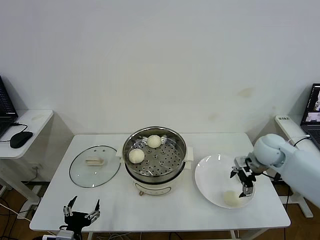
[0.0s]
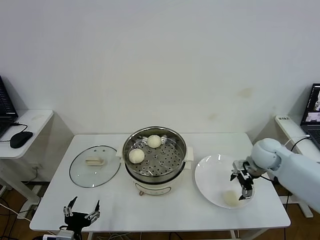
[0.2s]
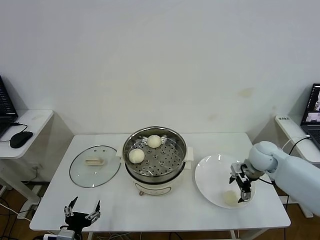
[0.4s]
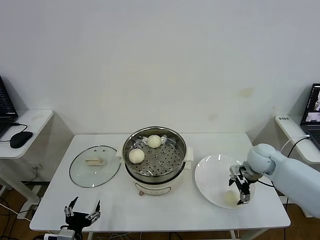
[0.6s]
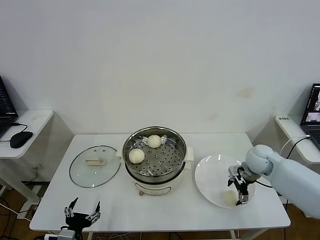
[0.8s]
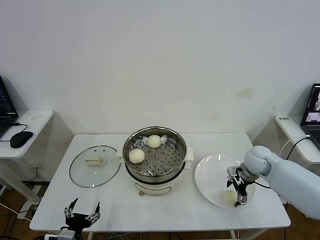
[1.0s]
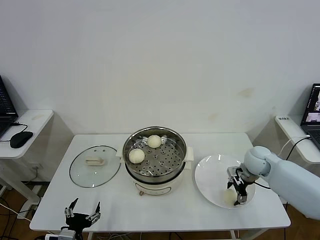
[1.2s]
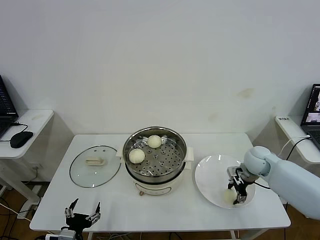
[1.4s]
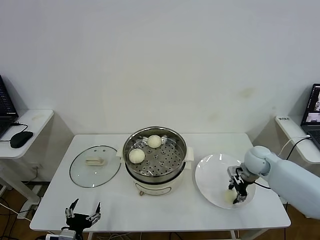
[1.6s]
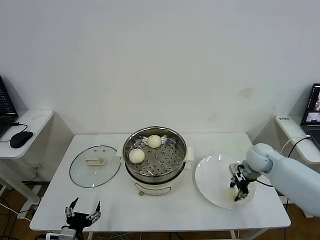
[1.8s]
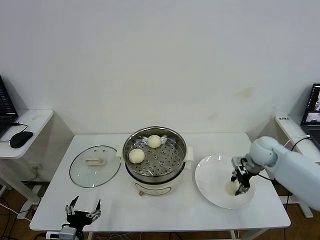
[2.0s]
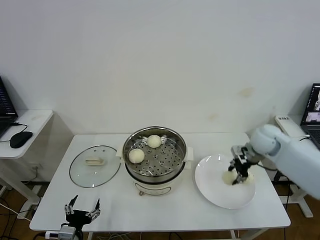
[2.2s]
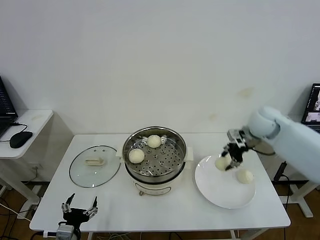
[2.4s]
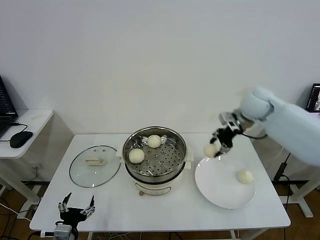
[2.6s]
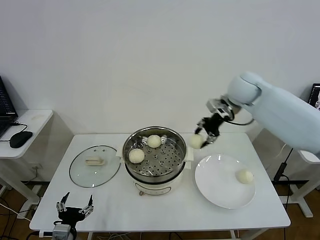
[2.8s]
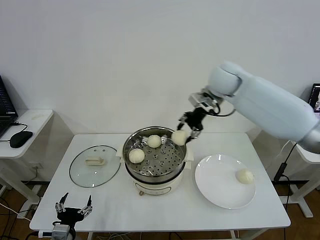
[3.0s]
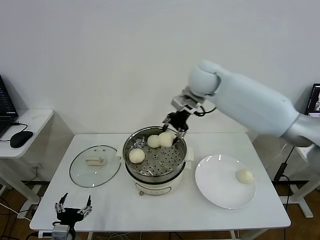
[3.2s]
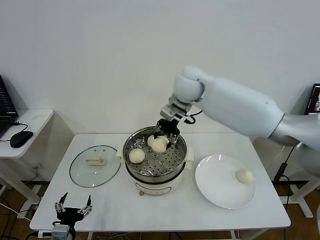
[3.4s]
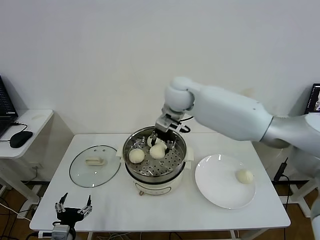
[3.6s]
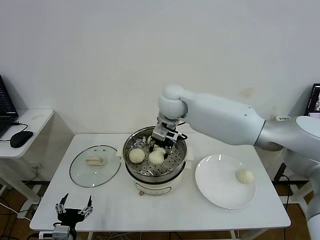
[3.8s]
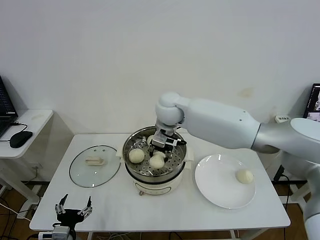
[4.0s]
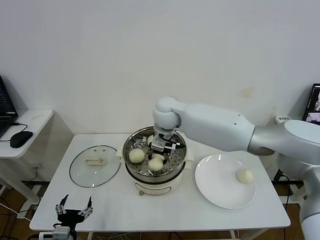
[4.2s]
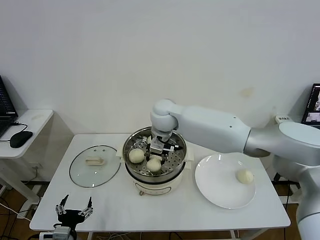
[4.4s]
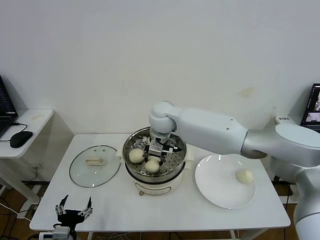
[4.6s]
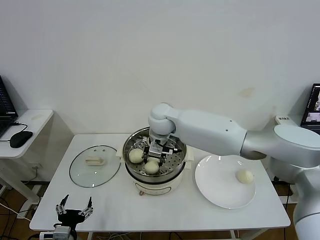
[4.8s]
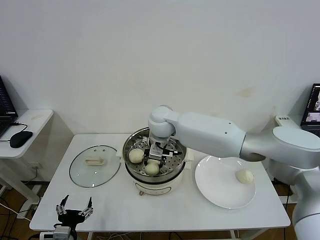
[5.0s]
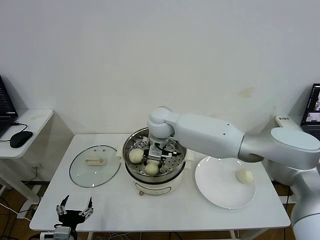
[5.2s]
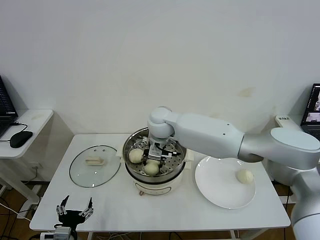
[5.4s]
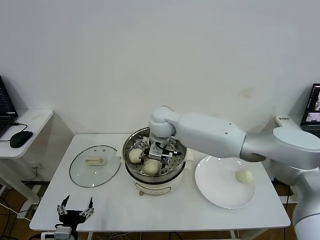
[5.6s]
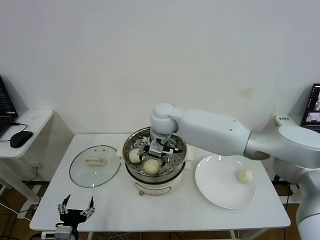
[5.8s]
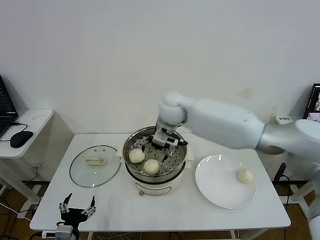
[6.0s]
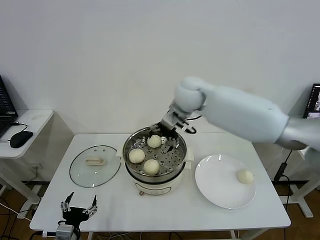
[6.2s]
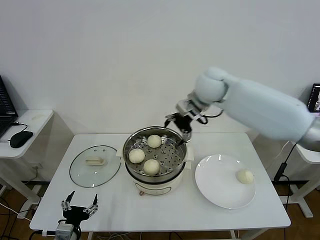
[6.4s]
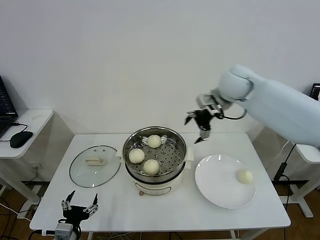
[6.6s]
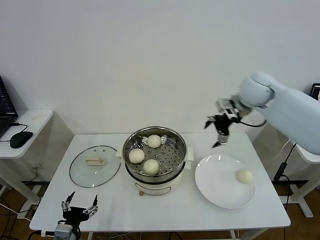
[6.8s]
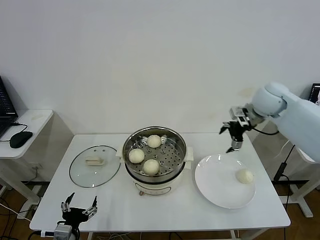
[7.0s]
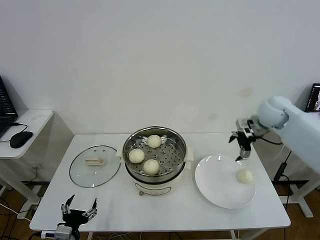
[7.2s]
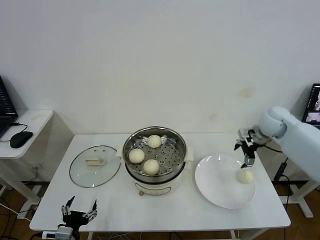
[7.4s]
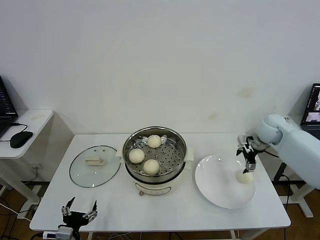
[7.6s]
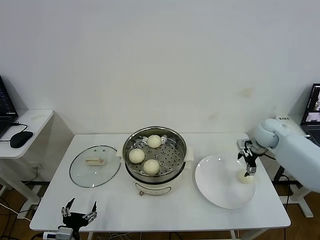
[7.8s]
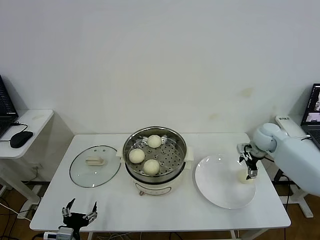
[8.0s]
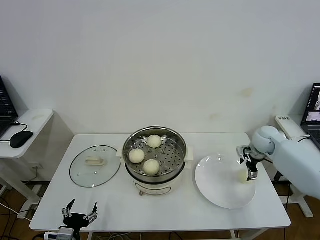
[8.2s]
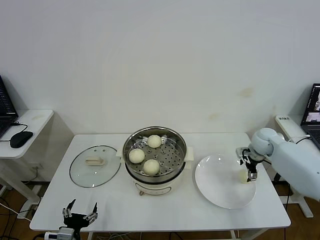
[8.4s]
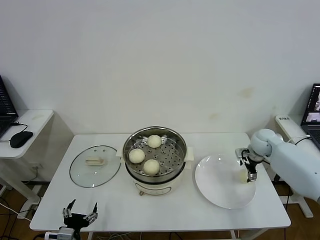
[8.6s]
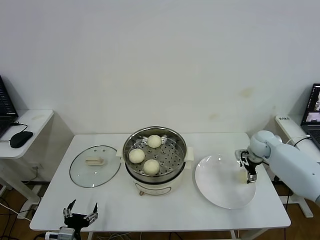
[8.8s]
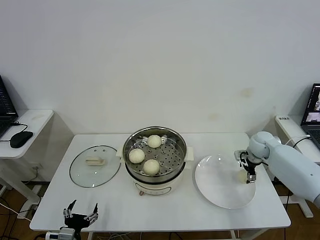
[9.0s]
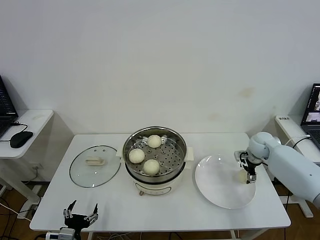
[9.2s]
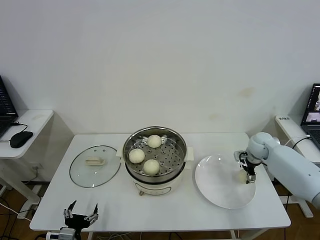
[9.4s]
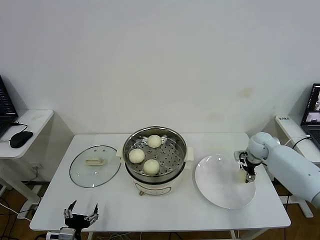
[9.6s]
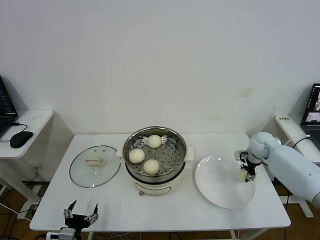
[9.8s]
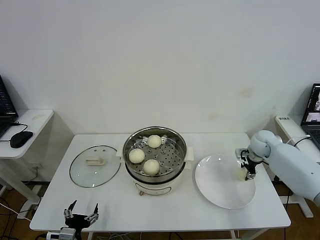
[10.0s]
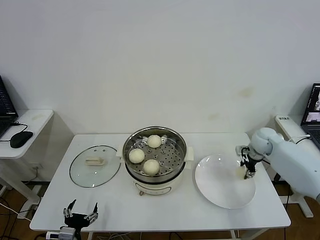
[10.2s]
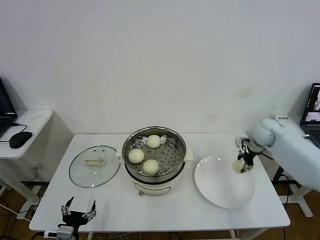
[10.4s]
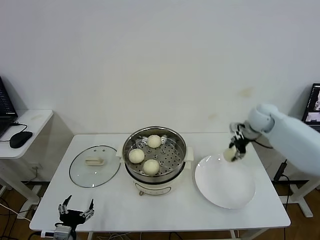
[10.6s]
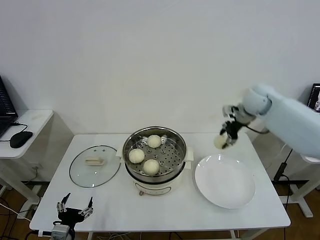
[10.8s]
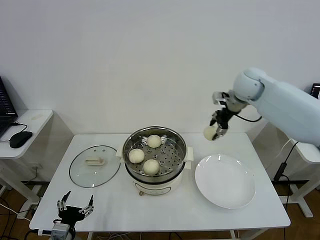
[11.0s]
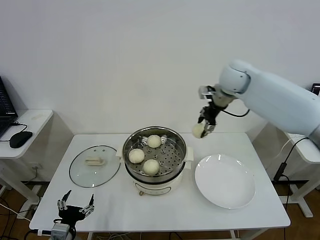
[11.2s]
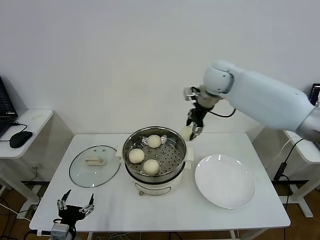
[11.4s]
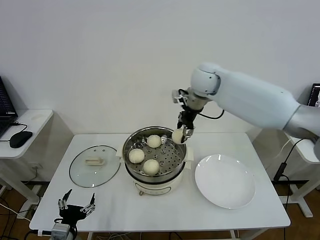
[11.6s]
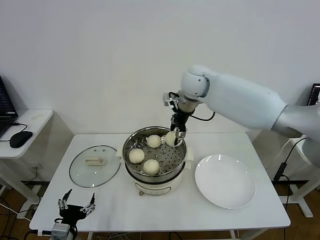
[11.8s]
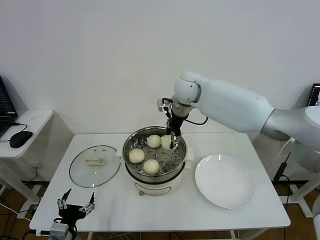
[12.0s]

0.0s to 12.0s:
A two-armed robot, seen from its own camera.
Step, 1.6s to 5.6s: Place the baozi on the steamer with right gripper.
Step, 5.8s to 9.8s: Grasp the baozi in the plate with right gripper.
0.0s to 1.6s: The right gripper moves downward, roughly 5 cm, and closes up.
1.6s to 3.0s: The right gripper shifts some 30 cm upward and to the left.
3.0s to 4.4s: The right gripper goes roughly 20 cm to the left and downward.
4.4s to 6.0s: The right gripper shifts by roughly 5 cm, and opens up.
6.0s to 7.6s: The right gripper moves to the right, some 35 cm.
7.6s to 9.0s: The right gripper heads downward, covering some 10 cm.
9.0s to 10.4s: The right gripper goes some 5 cm upward, and closes.
10.4s to 12.0s: The right gripper travels to the left and upward by about 35 cm.

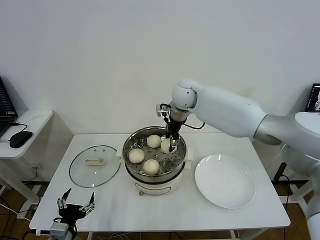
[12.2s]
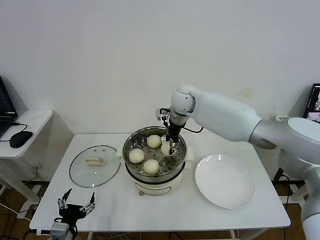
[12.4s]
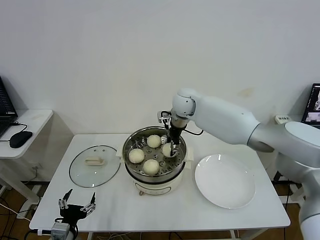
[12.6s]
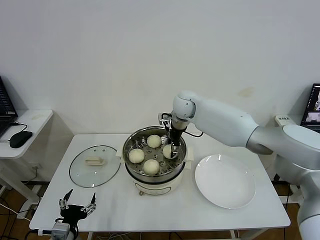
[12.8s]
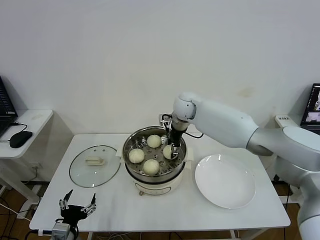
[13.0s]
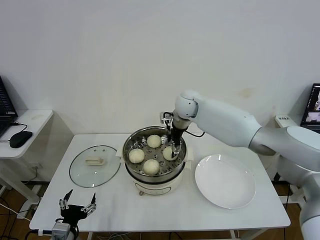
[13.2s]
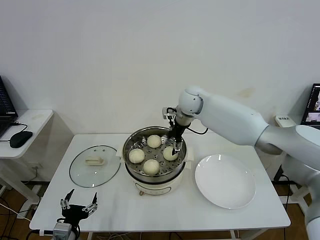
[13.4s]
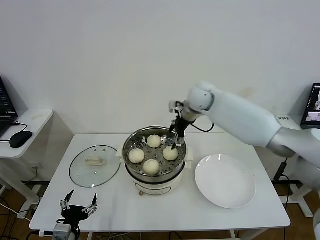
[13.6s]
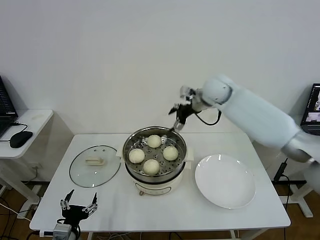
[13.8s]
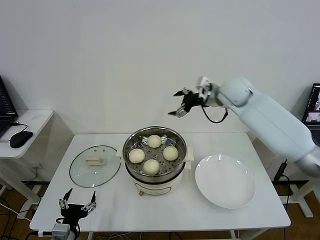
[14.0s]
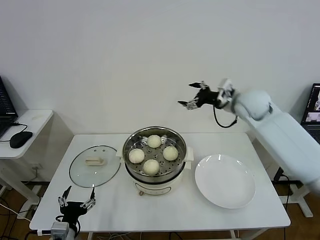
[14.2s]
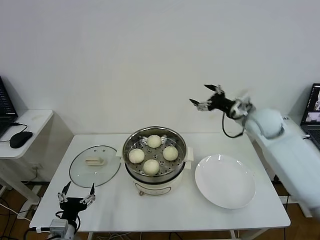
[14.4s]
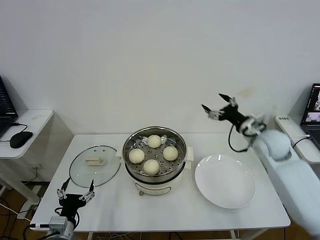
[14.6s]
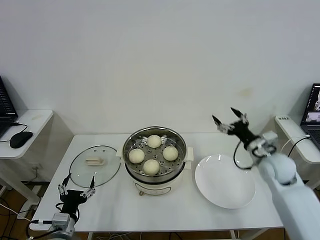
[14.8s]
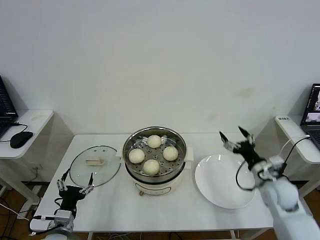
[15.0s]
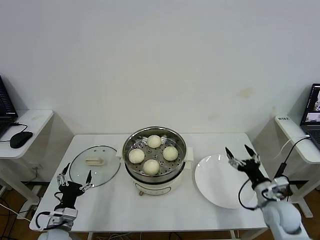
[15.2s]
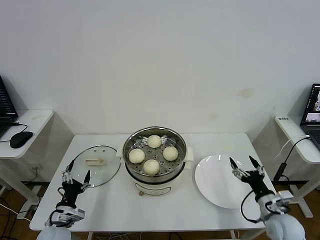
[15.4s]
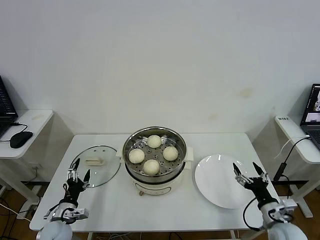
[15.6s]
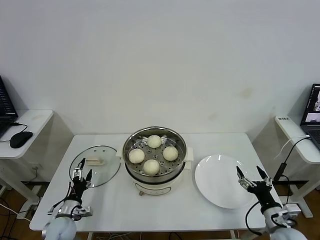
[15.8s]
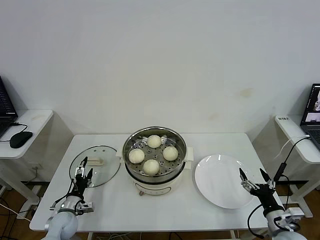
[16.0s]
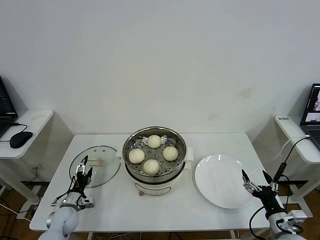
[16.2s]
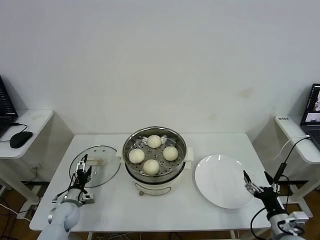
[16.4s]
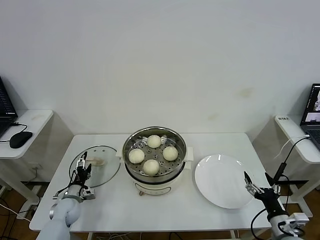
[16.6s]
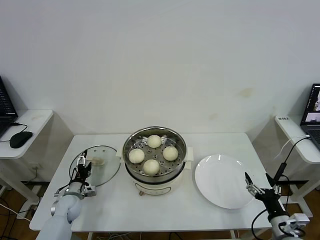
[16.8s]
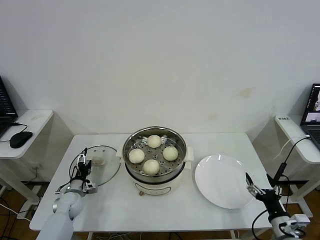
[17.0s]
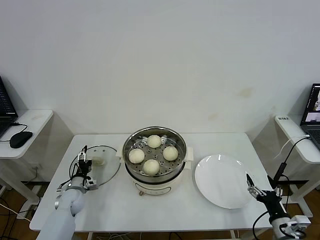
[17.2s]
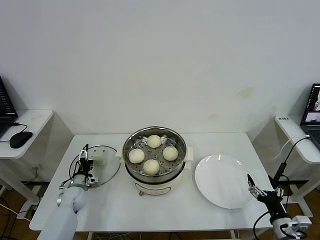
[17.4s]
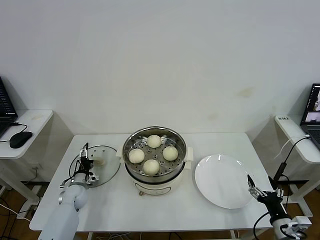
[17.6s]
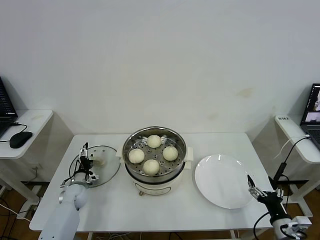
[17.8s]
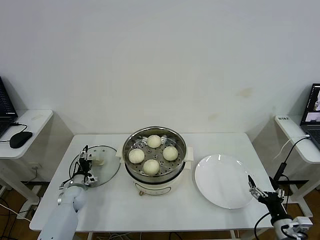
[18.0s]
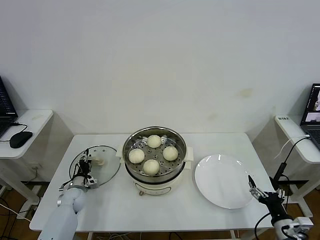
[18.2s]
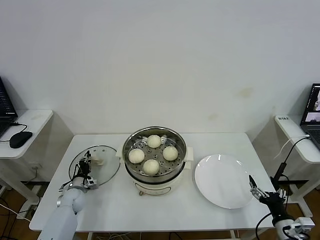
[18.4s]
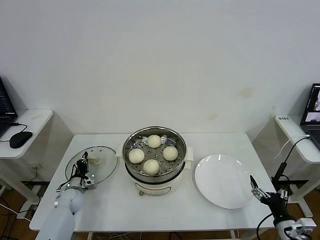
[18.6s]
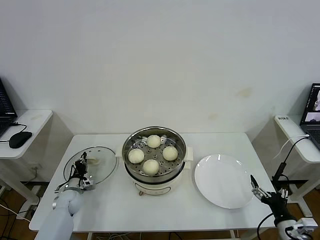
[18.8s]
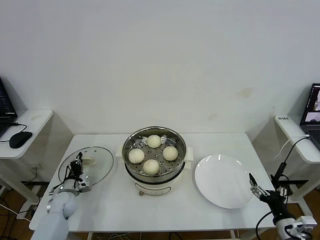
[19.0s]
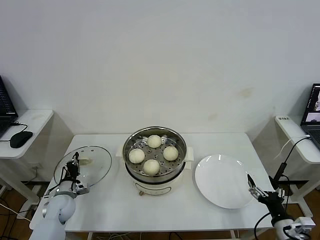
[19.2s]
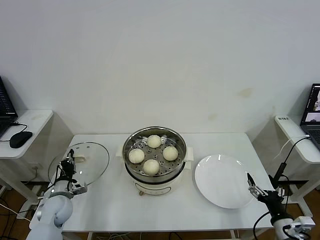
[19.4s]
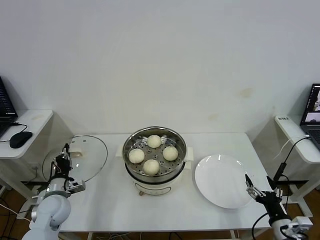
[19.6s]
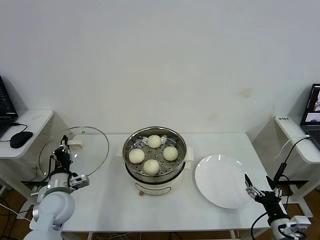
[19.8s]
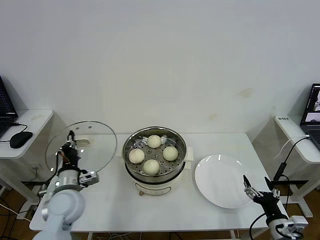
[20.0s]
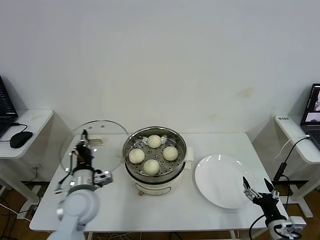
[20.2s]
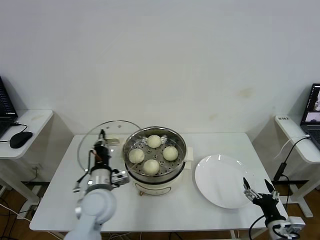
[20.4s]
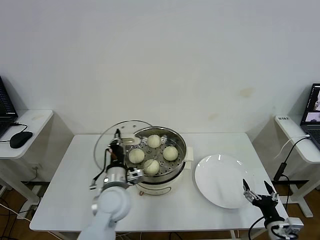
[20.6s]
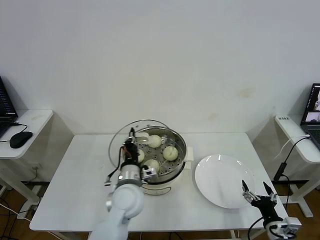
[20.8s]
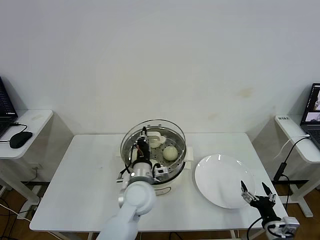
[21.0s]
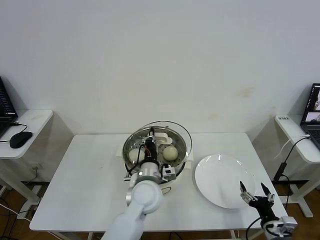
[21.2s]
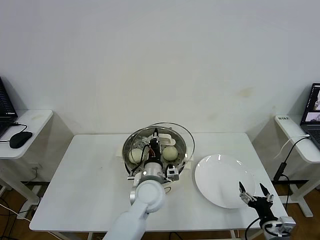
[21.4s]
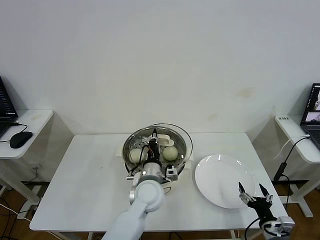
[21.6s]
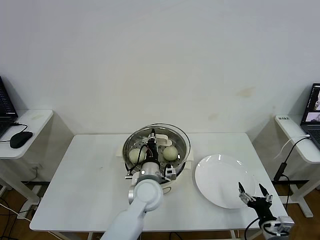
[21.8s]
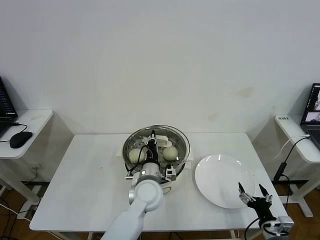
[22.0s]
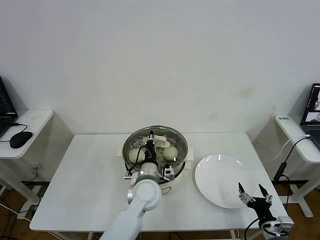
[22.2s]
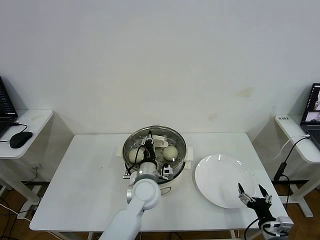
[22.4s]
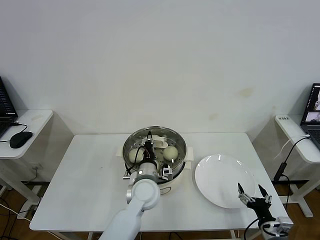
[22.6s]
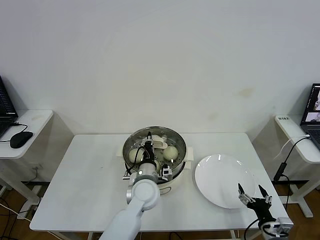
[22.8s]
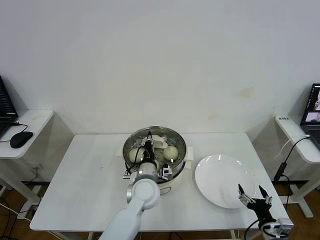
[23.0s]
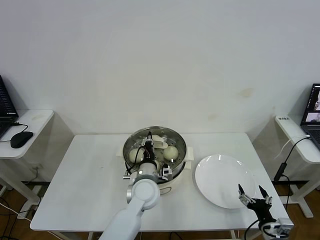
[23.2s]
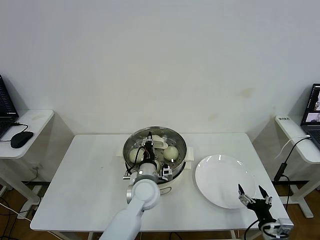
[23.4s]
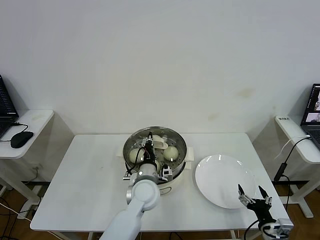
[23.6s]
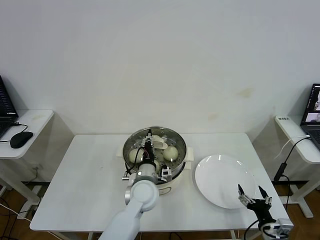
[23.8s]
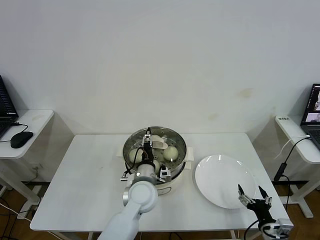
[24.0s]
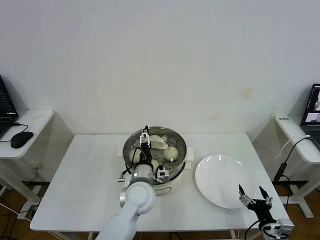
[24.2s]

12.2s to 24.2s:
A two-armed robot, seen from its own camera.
Step, 13.4s to 18.6s: Grasp the pot lid with left gripper.
Step, 19.0s to 24.0s: Place the pot lid on the steamer with left gripper.
12.2s to 13.8s: The right gripper moves to the right, roughly 10 cm, and opens up.
13.8s to 15.2s: The right gripper heads backward, downward and to the right, covering some 40 cm, while the left gripper is displaced forward by some 5 cm.
15.2s to 16.6s: The left gripper moves forward and downward, roughly 15 cm. Meanwhile the right gripper travels backward by some 10 cm.
16.6s to 18.2s: The left gripper moves forward, some 5 cm, and closes its fingers.
18.2s to 19.8s: The left gripper shifts about 20 cm upward and backward, and closes its fingers.
19.8s to 21.2s: The left gripper heads to the right, covering approximately 30 cm.
21.2s to 22.6s: The grippers stay close to where they were, moving slightly.
22.6s to 24.2s: The left gripper opens.
